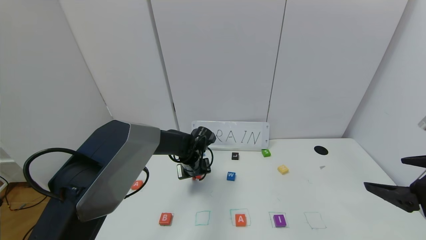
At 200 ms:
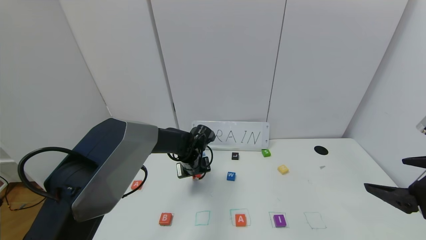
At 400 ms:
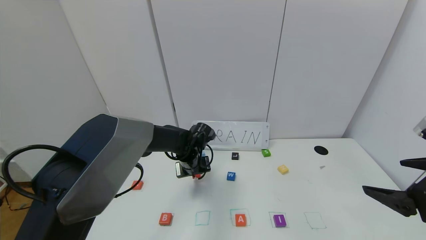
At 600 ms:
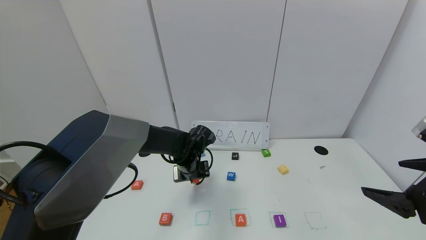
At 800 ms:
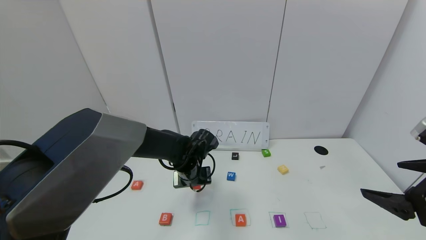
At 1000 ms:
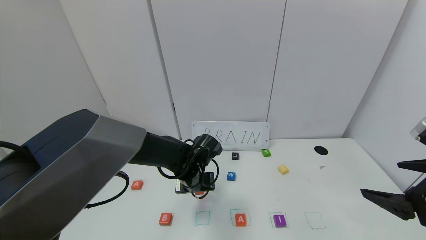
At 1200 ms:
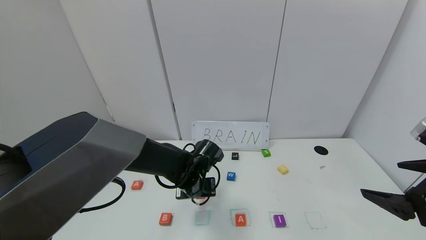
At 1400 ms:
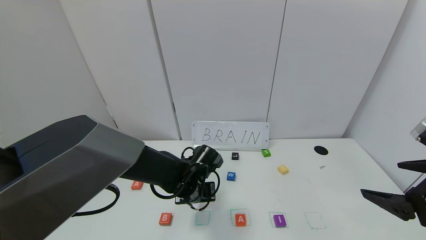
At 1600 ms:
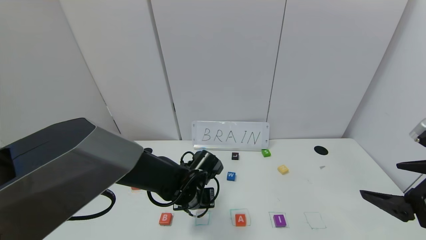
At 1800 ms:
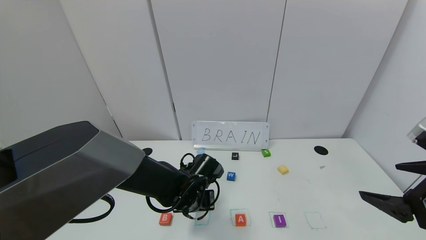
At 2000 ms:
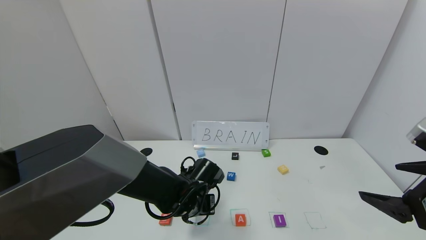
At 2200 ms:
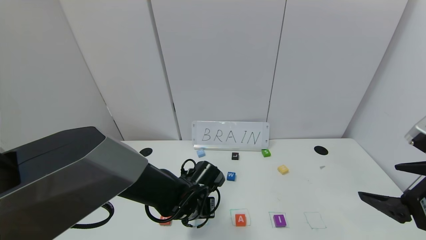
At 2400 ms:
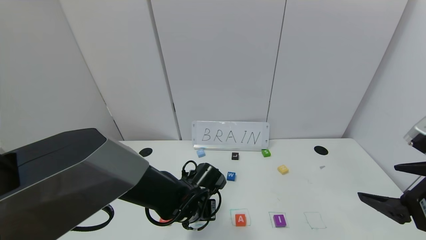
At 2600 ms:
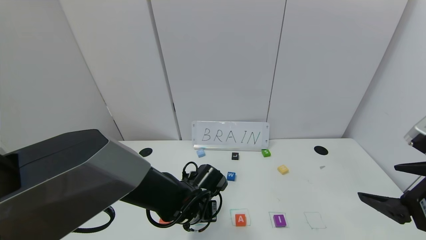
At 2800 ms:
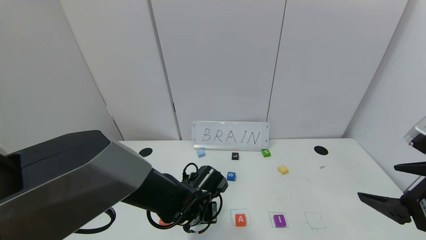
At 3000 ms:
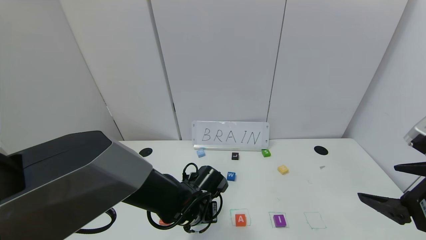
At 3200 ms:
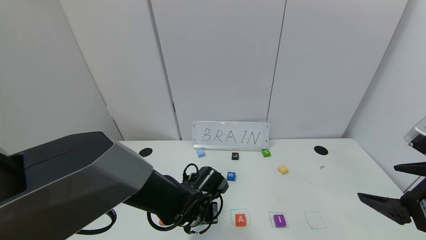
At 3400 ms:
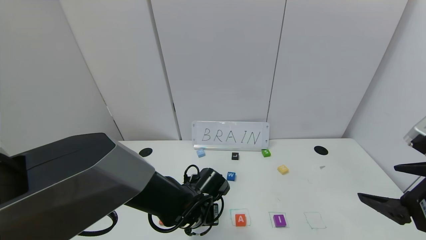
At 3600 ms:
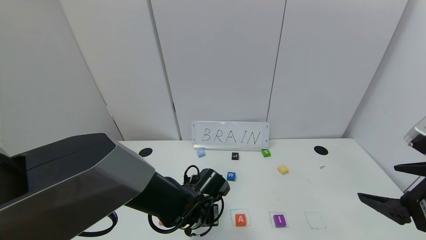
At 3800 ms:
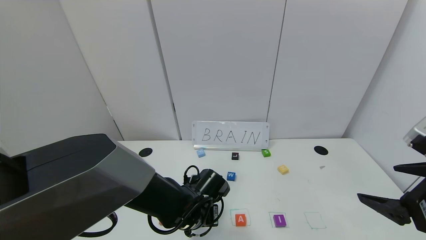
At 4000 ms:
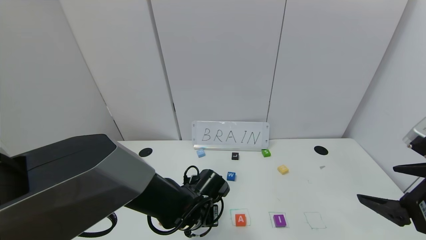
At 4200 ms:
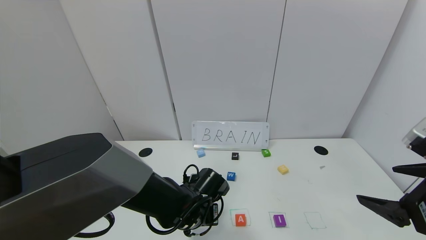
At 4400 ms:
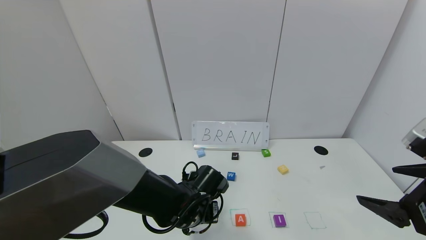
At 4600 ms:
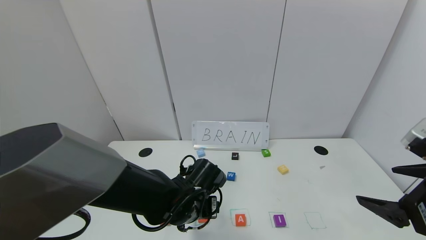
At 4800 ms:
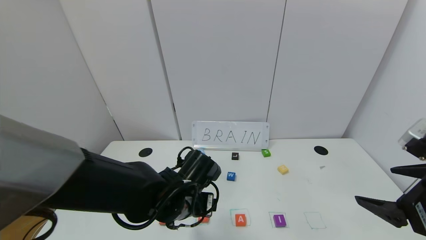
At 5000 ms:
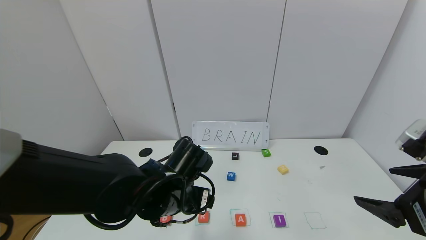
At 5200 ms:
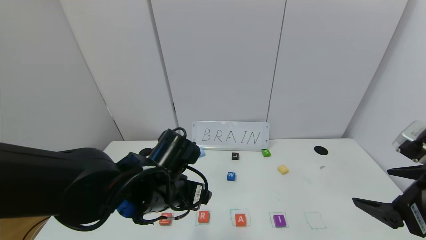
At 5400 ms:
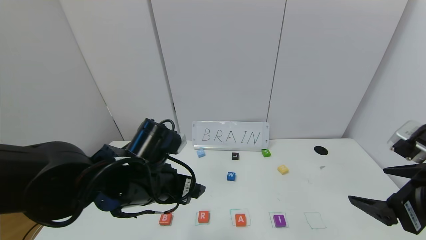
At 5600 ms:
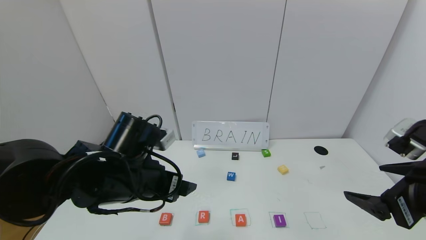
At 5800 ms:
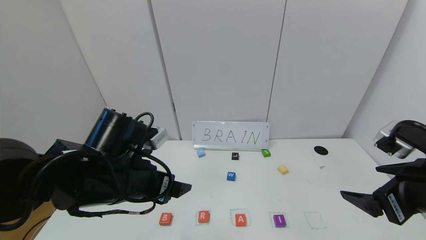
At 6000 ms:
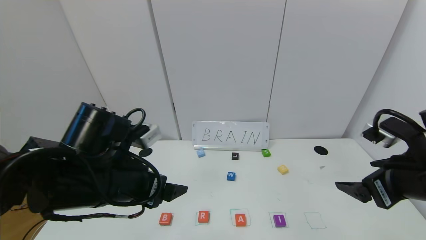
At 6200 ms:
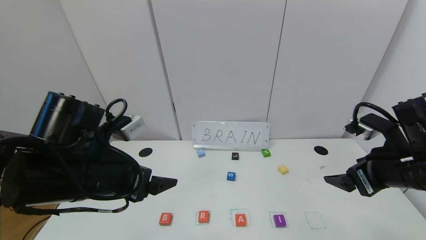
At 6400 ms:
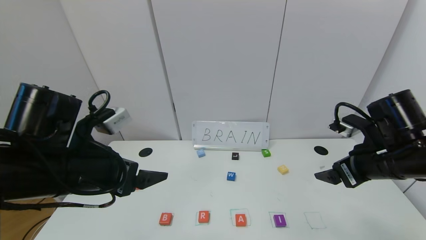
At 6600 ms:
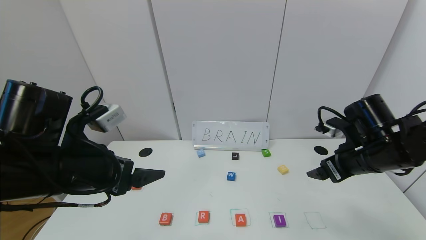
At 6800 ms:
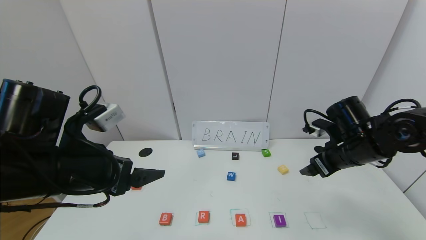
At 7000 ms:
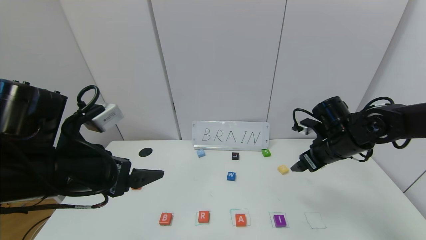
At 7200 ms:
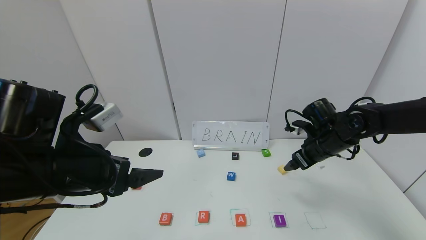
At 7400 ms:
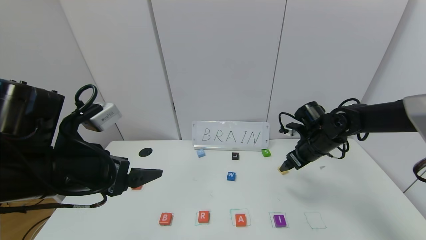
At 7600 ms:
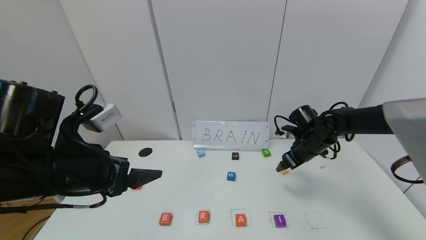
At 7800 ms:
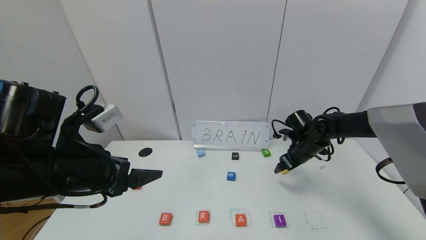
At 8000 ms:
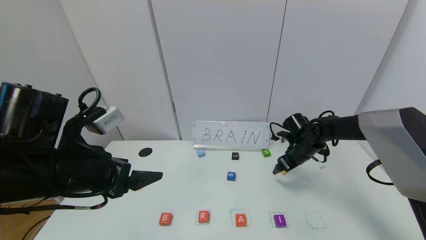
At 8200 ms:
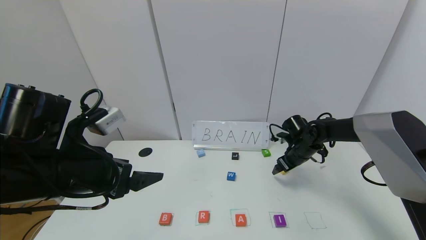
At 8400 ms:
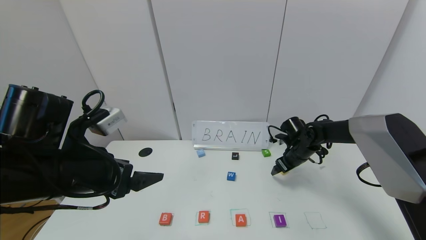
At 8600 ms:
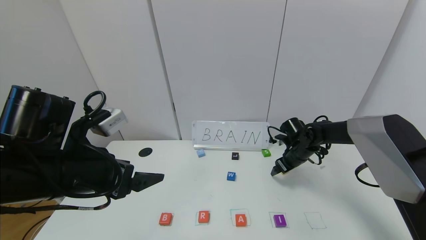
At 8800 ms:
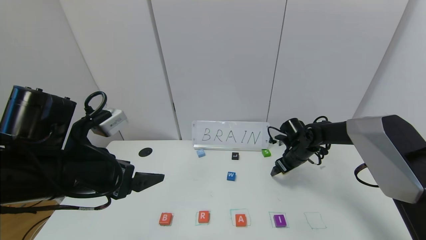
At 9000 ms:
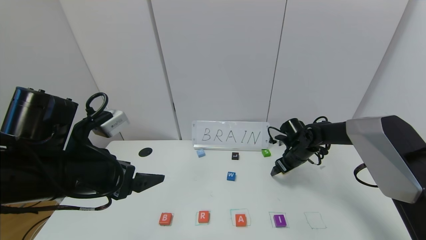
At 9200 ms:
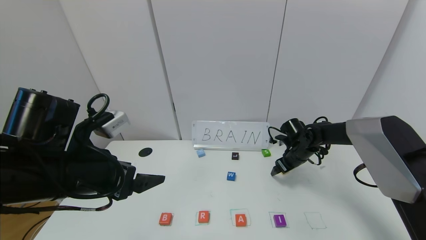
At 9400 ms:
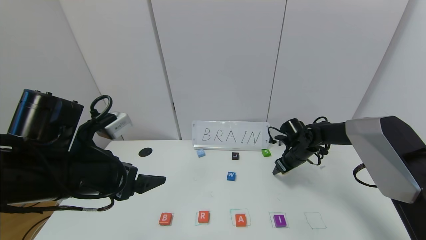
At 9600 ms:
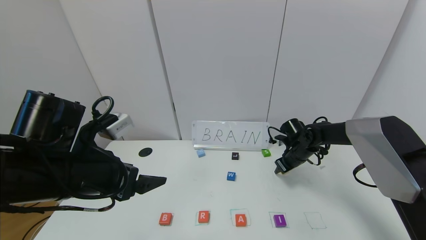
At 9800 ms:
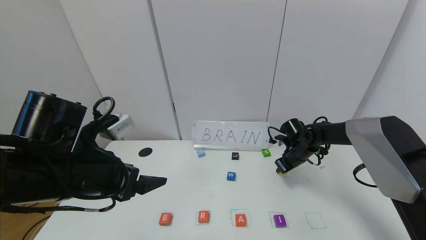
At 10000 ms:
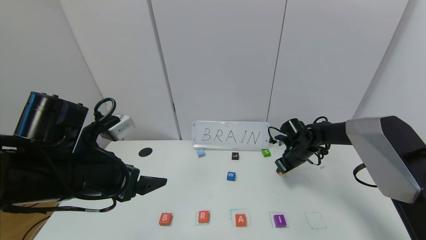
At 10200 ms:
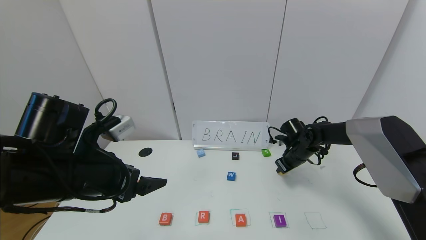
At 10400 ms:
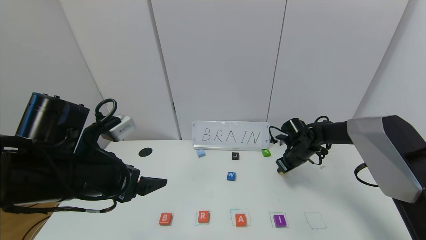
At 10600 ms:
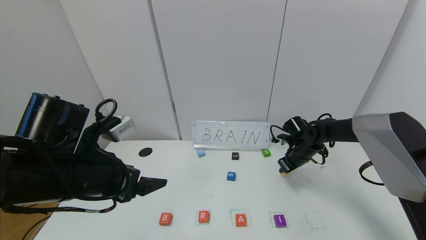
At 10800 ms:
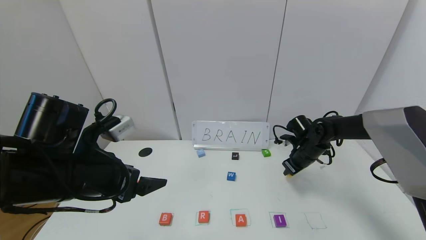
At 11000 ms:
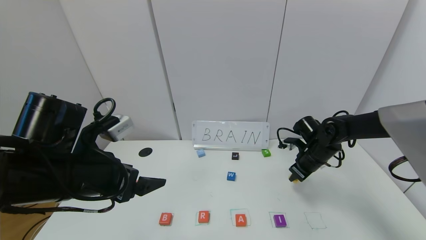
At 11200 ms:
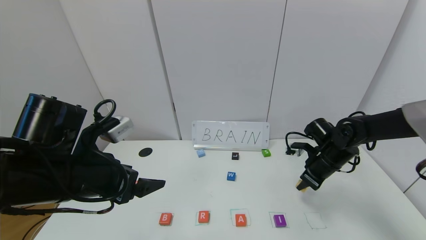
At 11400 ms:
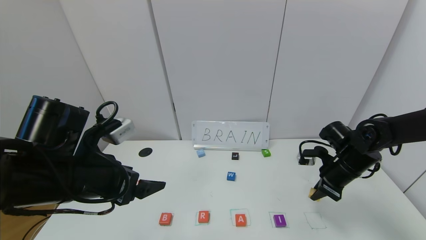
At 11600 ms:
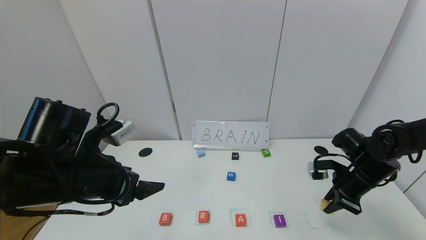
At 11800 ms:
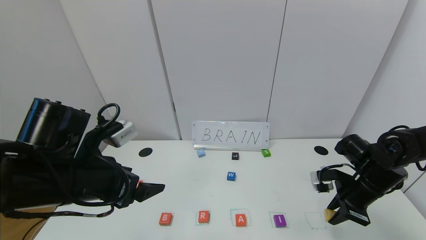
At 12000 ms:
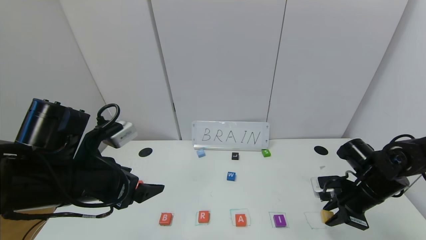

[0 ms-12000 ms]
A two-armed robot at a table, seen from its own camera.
Task of the whole recording: use the gripper to find blocks with the letters b, a, a, and i on the table and arrange them into BAAI, then find r and N and turn the arranged baai into brian.
Step, 0 ms to 4200 ms: Place the block R in the second location.
0 ms to 1600 ms: The left gripper goes approximately 10 cm backward.
1600 ms to 3000 ms: There are only small adjustments of the grippers.
3000 ms to 4400 ms: The left gripper opens its fingers.
4400 ms to 6000 ms: The left gripper shifts approximately 20 cm upward and to the left, while the right gripper moves forward, about 5 cm.
6000 ms to 7600 ms: The right gripper travels forward and downward by roughly 25 cm, while the left gripper shifts by approximately 5 cm.
7600 ms to 9000 ms: The right gripper travels downward by some 5 cm.
9000 ms to 10400 ms: The right gripper closes.
10400 ms to 12000 ms: The right gripper is displaced backward and to the right by some 20 cm.

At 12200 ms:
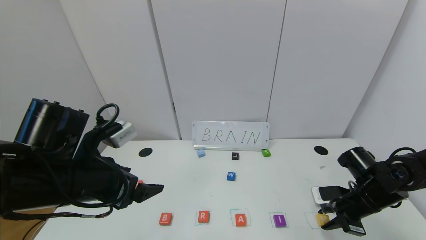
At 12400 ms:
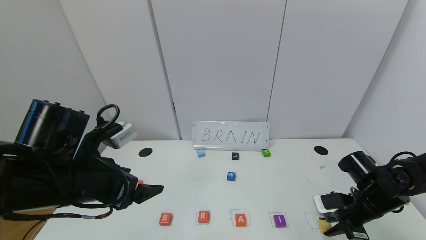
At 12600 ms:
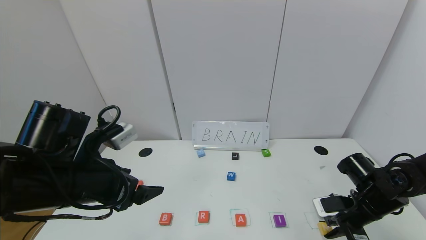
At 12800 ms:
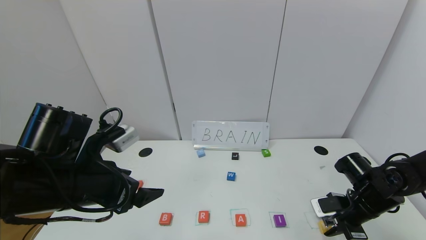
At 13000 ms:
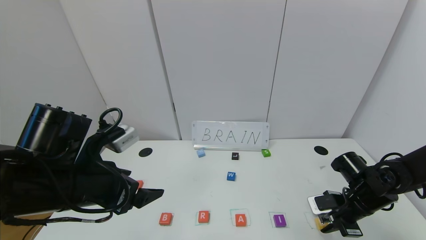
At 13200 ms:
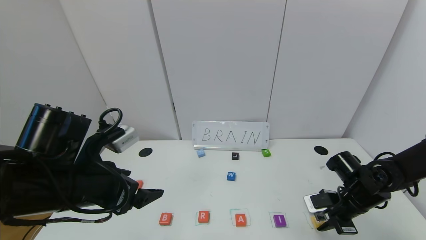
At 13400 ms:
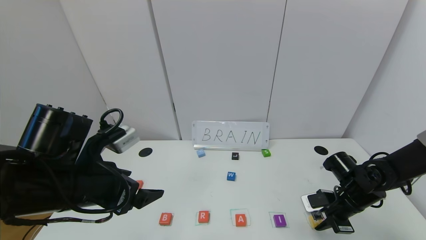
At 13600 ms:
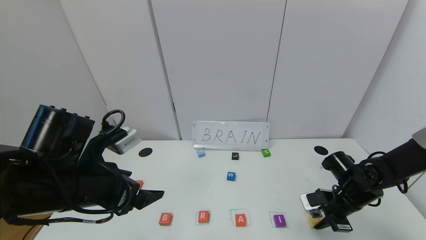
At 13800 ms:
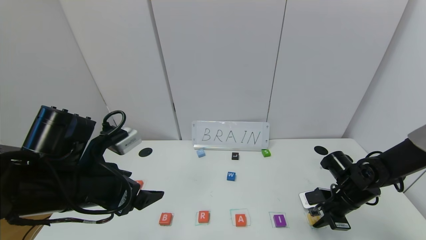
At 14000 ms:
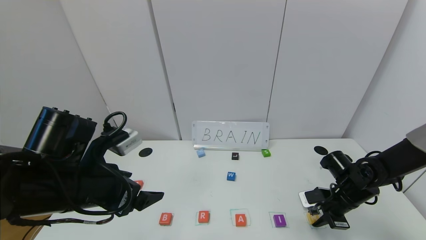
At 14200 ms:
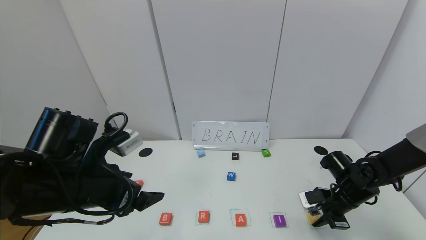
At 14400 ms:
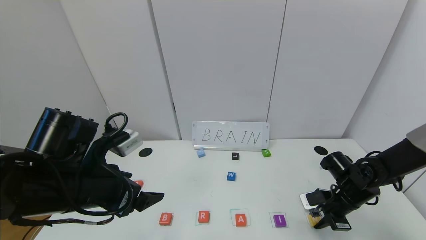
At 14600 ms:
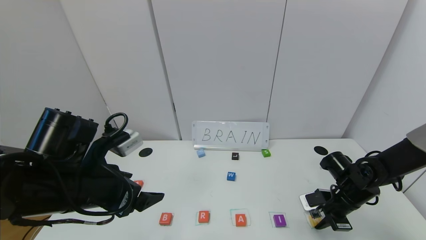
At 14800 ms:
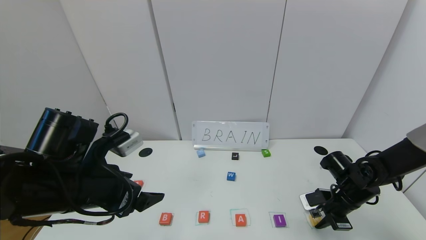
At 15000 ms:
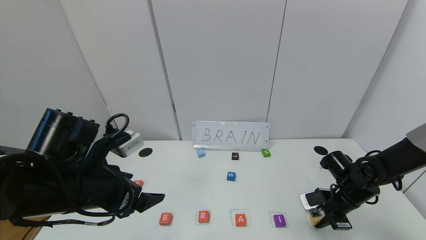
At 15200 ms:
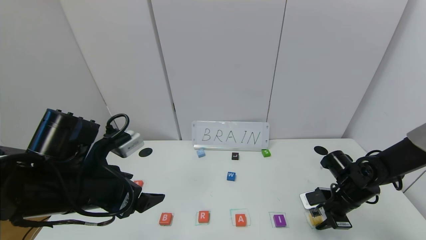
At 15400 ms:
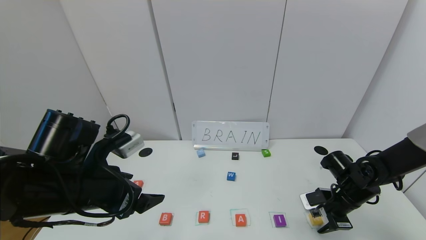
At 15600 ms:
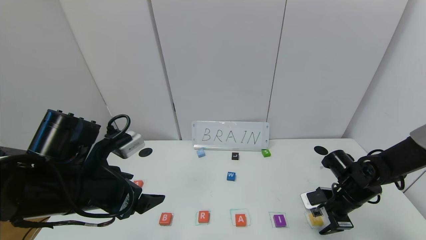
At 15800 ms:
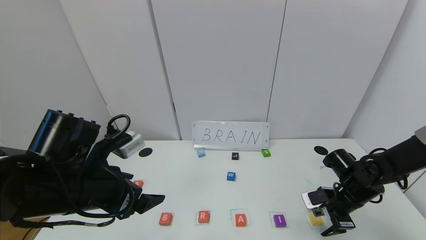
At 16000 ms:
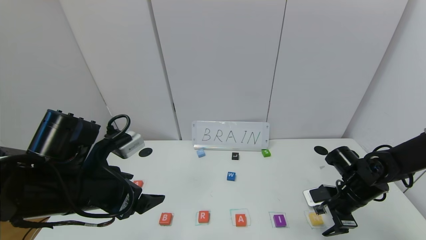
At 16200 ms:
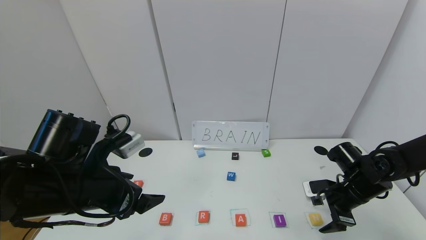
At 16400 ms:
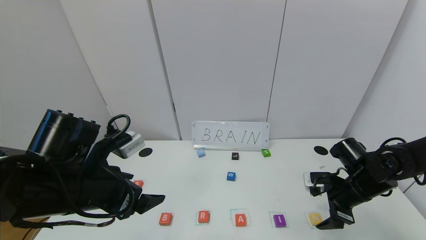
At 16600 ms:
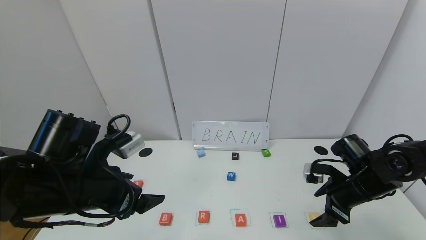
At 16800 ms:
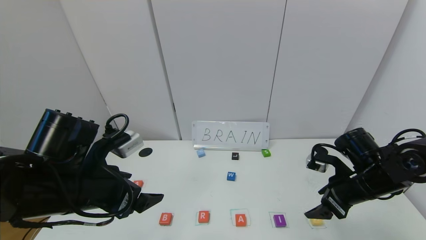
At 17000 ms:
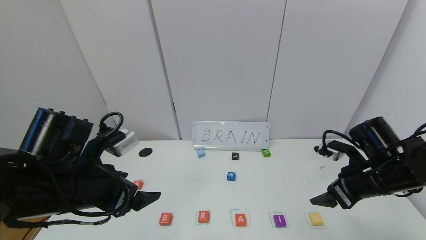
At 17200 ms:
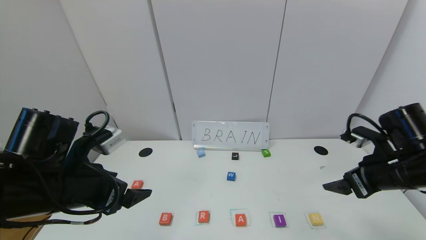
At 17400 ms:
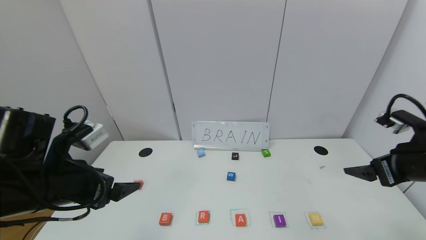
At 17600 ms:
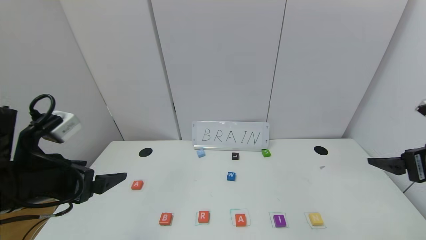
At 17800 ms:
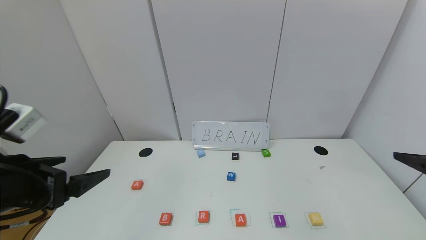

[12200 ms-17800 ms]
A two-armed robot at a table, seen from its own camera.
Task of the whole recording: use the gripper to find blocks with the letters b, a, a, and i on the table and arrange them into BAAI, then find r and N and turn the arranged baai into brian.
Step, 12200 ms to 15800 ms: Place the block N in the fifth location.
12200 ms to 13600 ms: The grippers make only small movements.
13600 ms to 15000 ms: Neither gripper changes place.
15000 ms to 16400 ms: The right gripper is displaced upward by some 5 cm, and opens up.
16400 ms to 17800 ms: The left gripper travels to the left and backward by about 10 cm. Meanwhile the right gripper shifts about 25 cm upward and backward.
